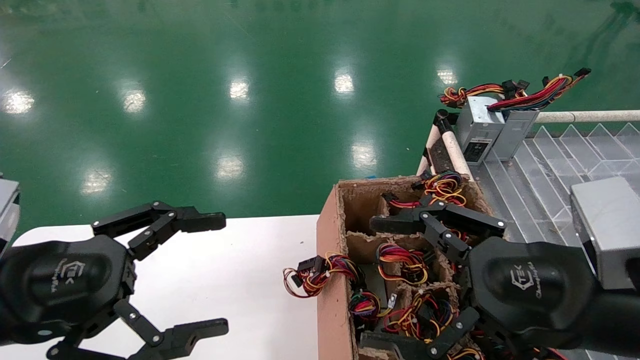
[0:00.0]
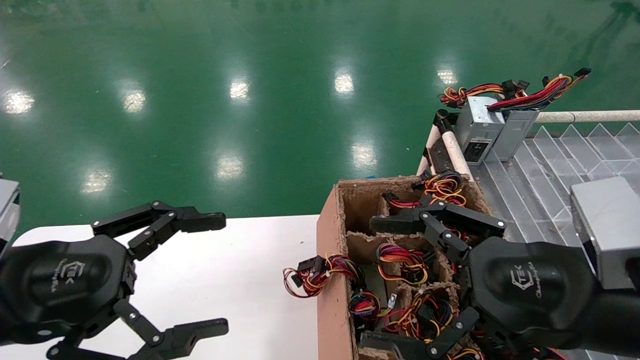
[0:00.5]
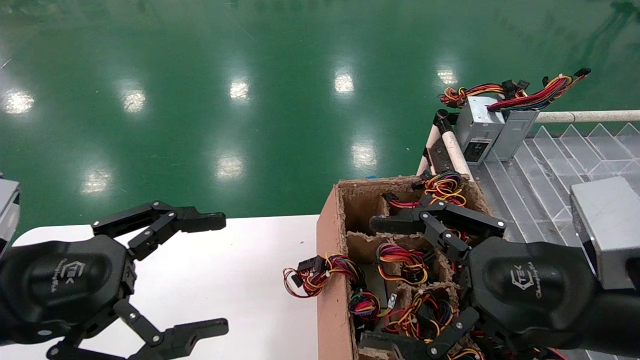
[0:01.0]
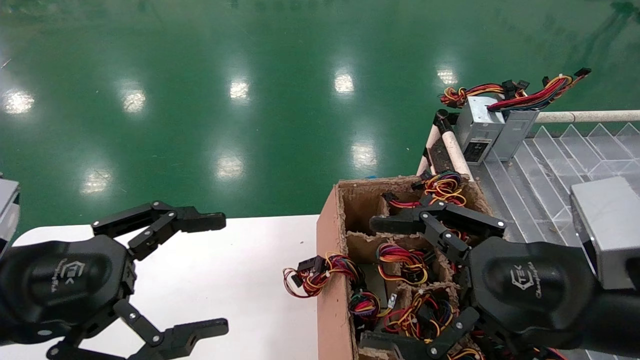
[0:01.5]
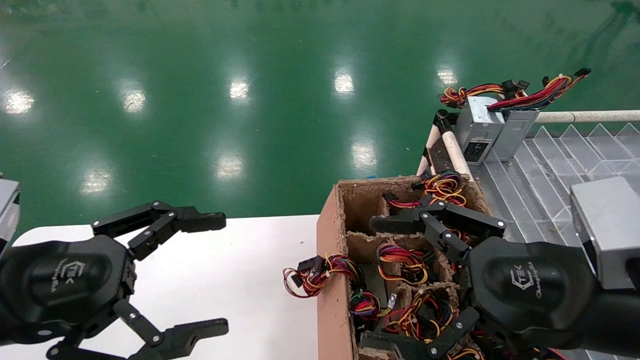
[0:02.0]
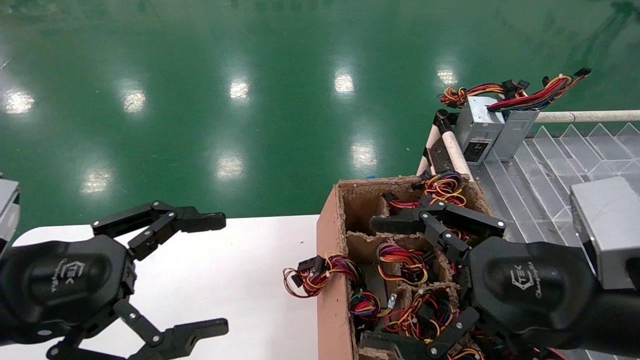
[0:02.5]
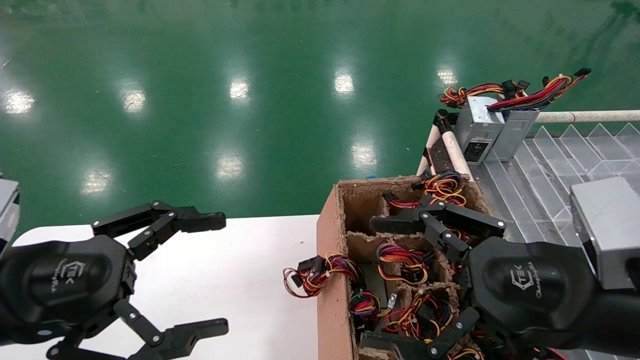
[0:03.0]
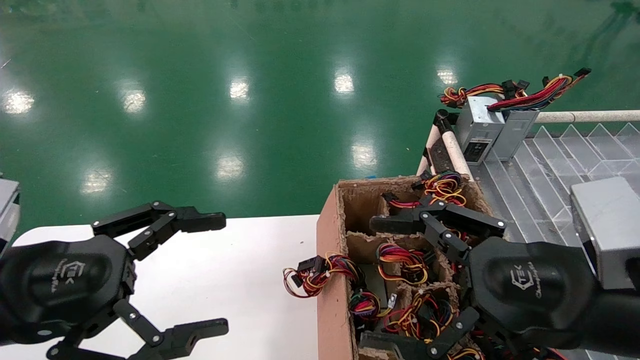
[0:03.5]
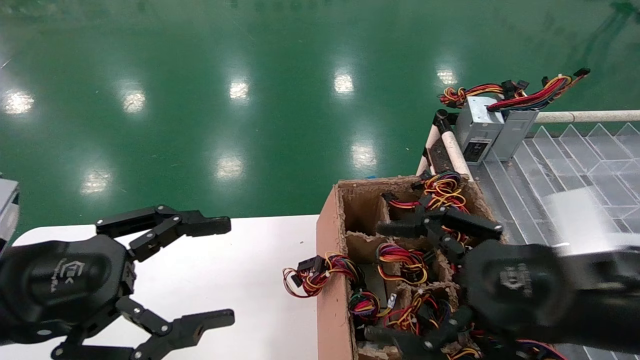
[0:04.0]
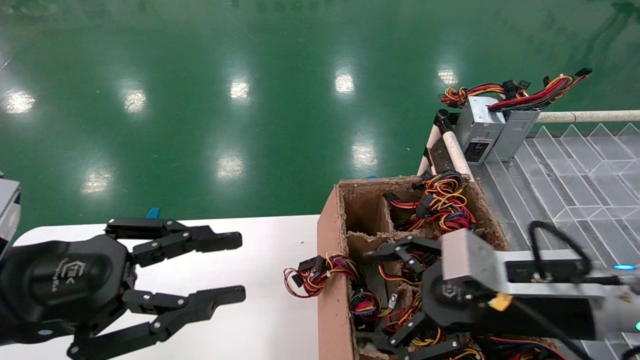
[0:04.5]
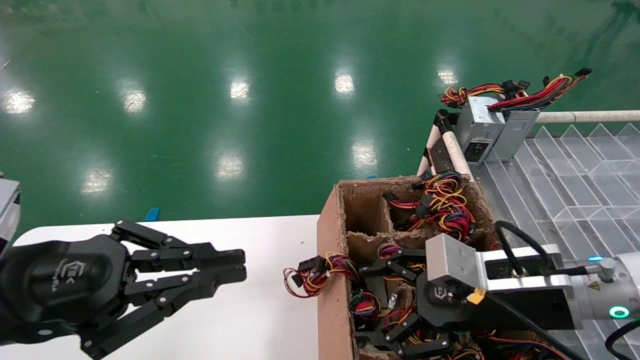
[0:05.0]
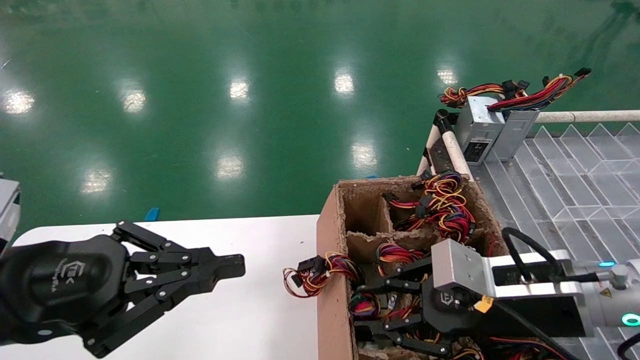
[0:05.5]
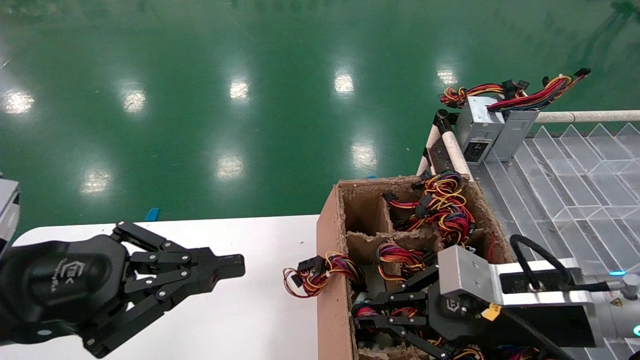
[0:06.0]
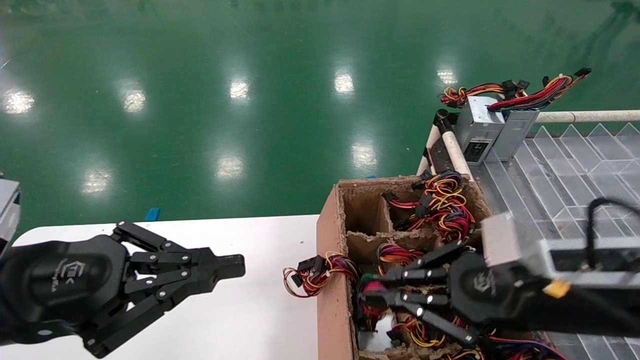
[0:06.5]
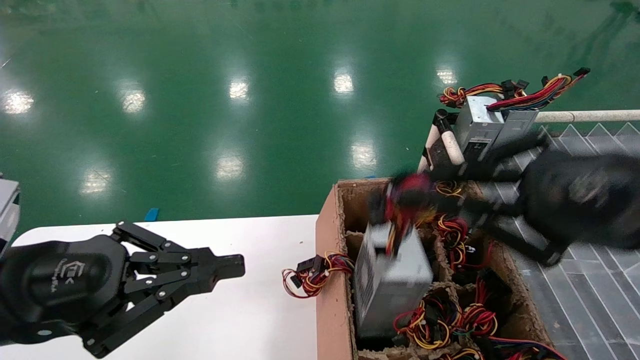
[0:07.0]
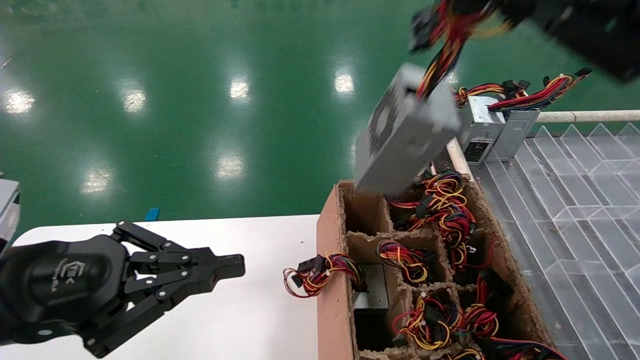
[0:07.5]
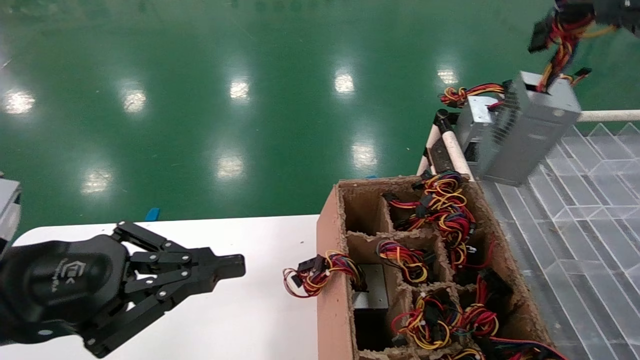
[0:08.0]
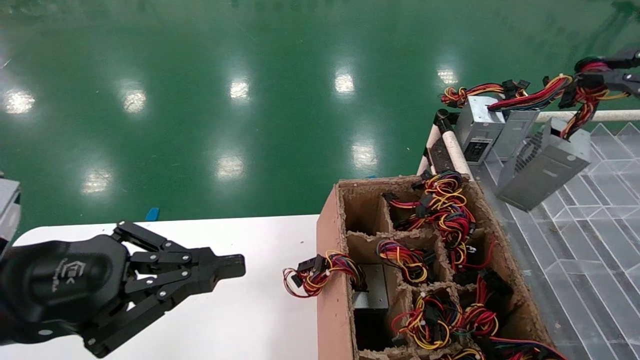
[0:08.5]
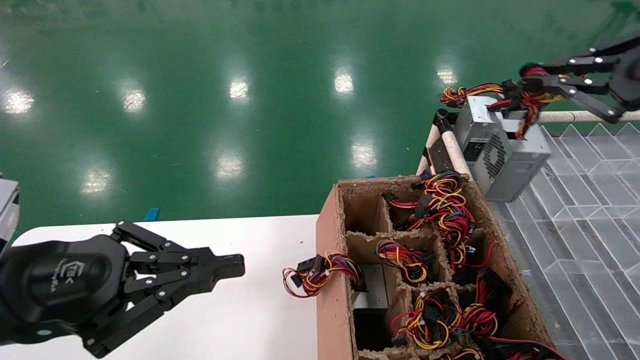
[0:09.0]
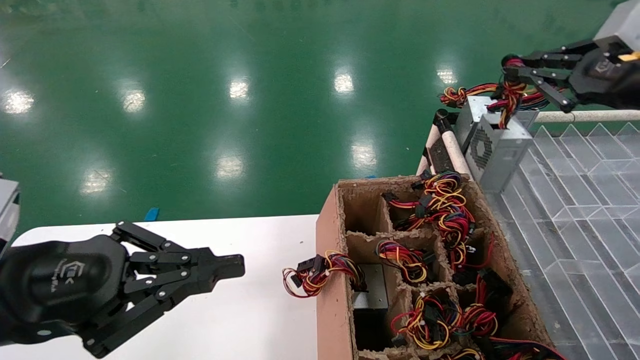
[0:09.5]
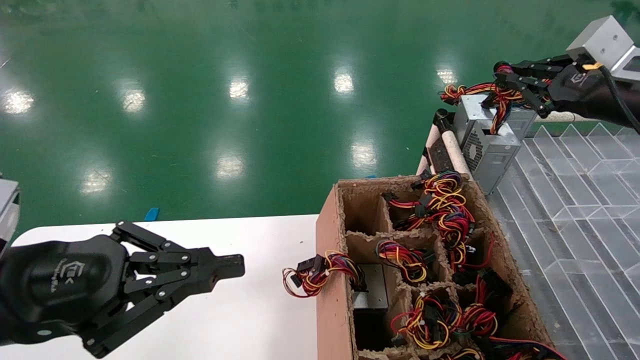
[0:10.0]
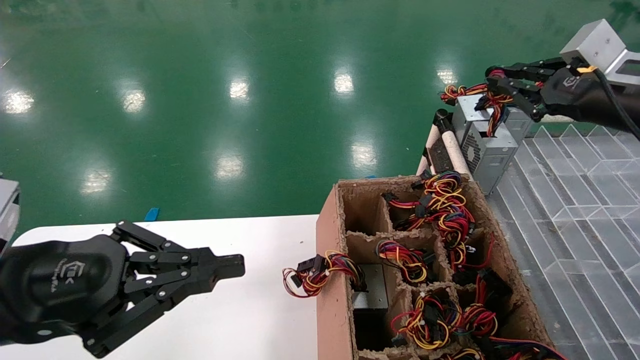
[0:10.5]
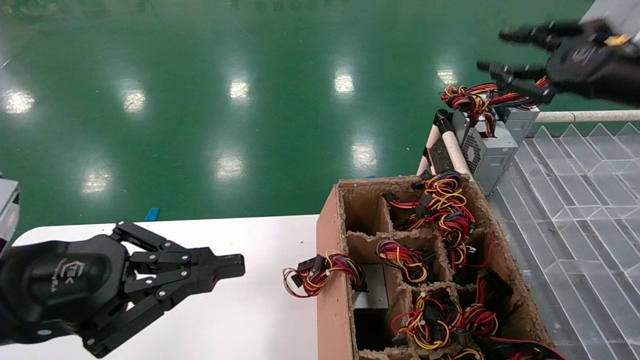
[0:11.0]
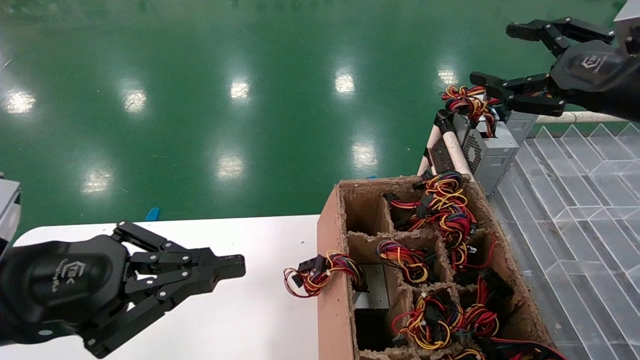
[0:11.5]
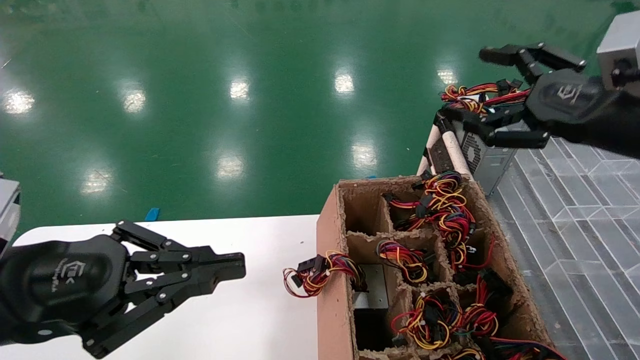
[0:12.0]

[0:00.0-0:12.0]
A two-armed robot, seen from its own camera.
Step, 0:04.5 to 0:06.0: Grab the main unit power supply from the containment box.
Step, 0:06.5 to 0:11.0: Place the main unit power supply in the designated area.
0:00.0 to 0:02.0: Both grippers stay put.
0:02.0 to 0:04.0: The grippers stay close to where they were, moving slightly.
0:04.0 to 0:06.0: The right gripper travels forward by some 5 cm, and closes its fingers, while the left gripper closes up.
0:06.0 to 0:08.0: The right gripper heads upward and to the right, covering about 30 cm.
0:08.0 to 0:10.0: The right gripper moves forward and downward, some 20 cm.
0:10.0 to 0:12.0: The right gripper goes approximately 10 cm to the left and backward, and opens its fingers.

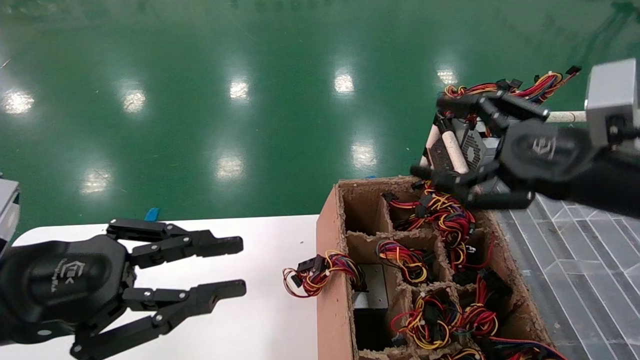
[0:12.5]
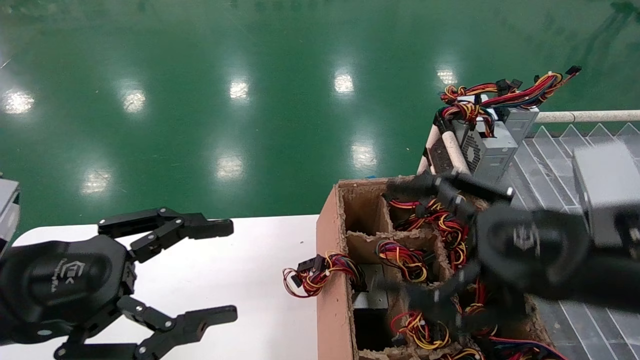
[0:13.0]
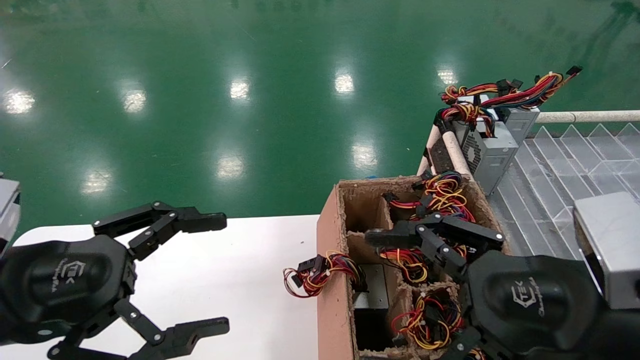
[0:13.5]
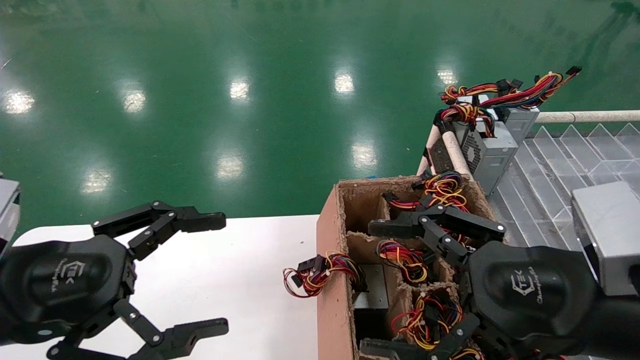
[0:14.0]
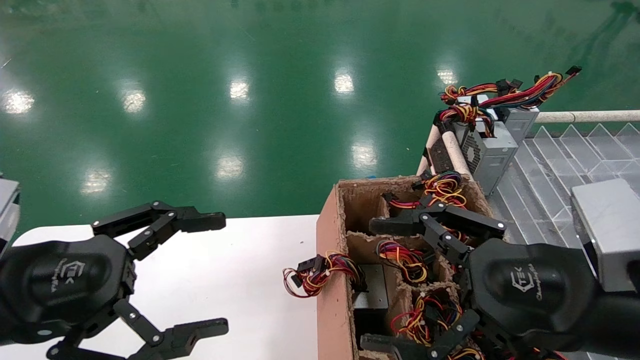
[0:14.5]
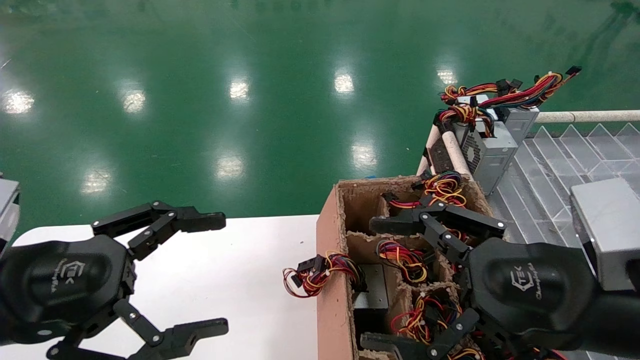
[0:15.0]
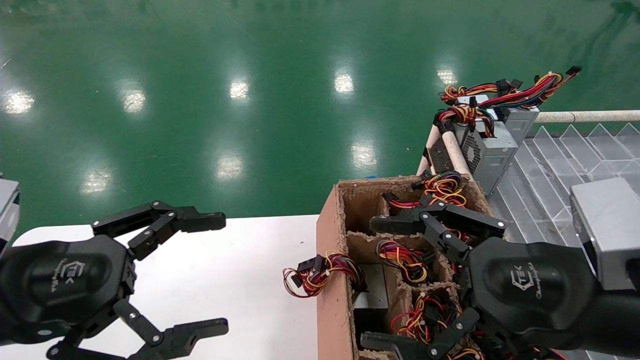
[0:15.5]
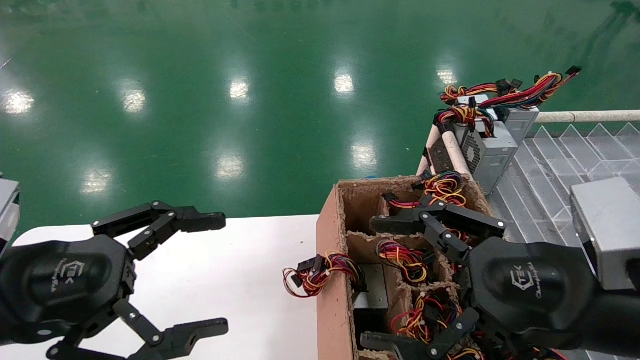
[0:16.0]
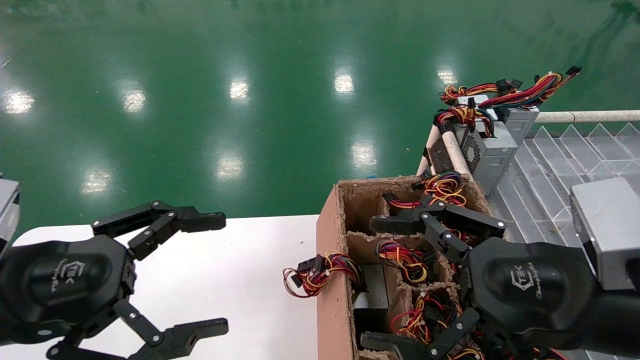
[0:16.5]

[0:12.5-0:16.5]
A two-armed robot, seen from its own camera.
0:12.5 to 0:14.5: The left gripper opens its fingers. Meanwhile the right gripper travels backward, downward and to the left by roughly 10 cm.
0:14.5 to 0:16.5: The two grippers keep their place.
